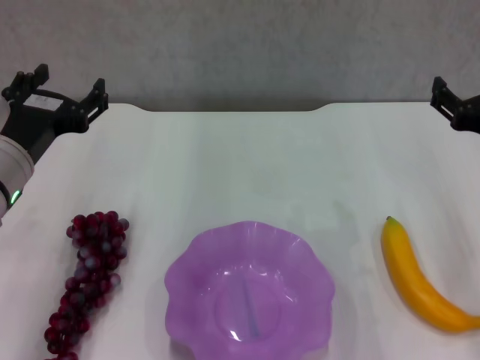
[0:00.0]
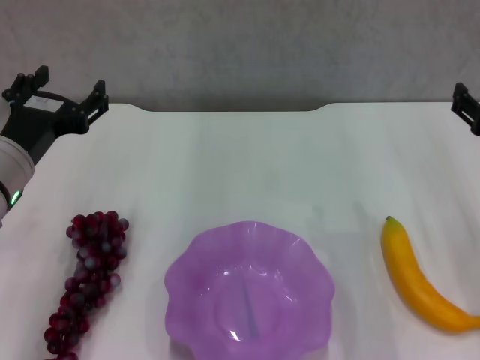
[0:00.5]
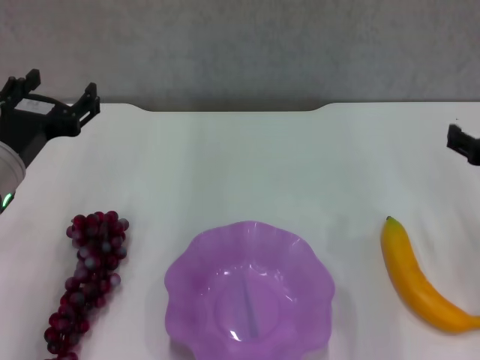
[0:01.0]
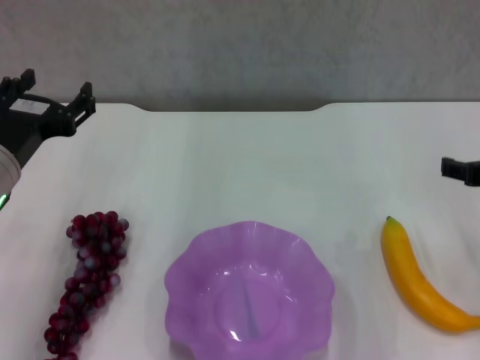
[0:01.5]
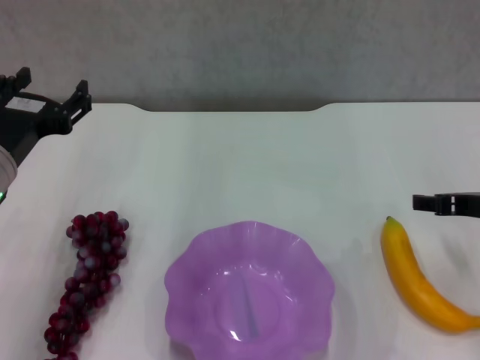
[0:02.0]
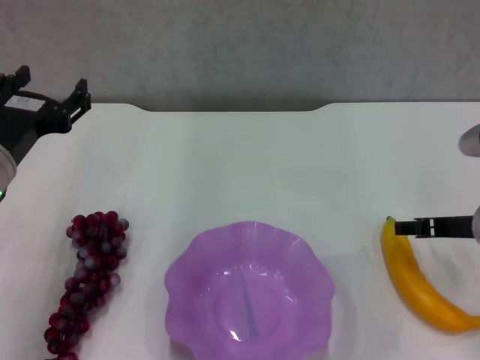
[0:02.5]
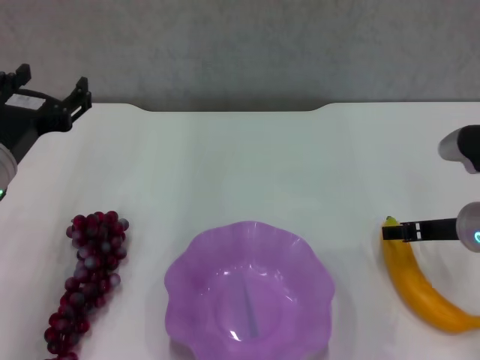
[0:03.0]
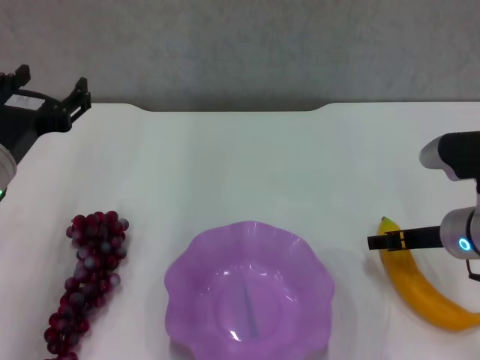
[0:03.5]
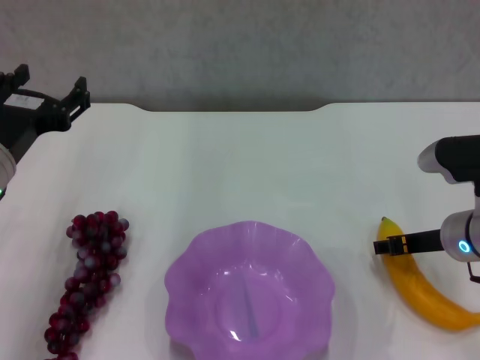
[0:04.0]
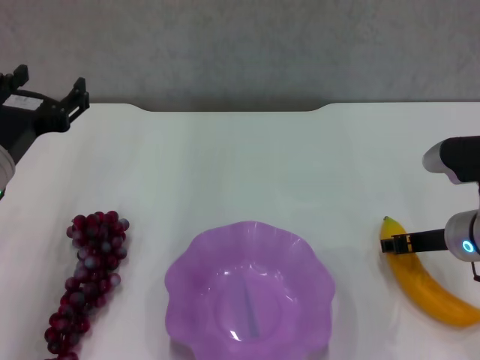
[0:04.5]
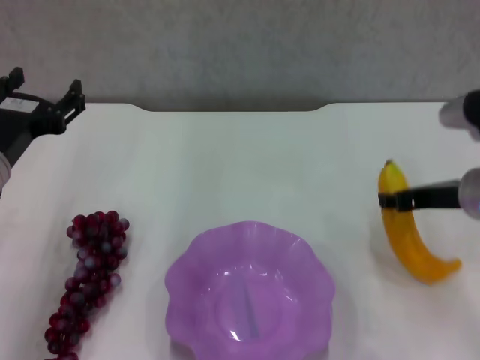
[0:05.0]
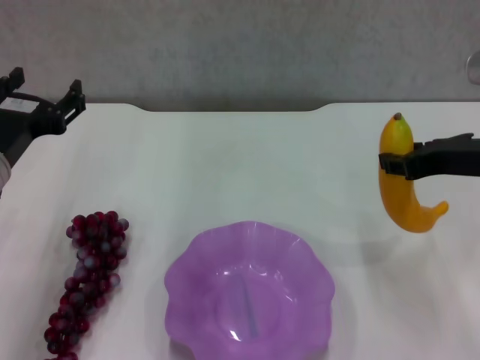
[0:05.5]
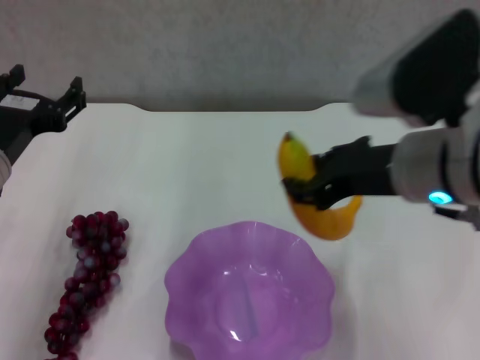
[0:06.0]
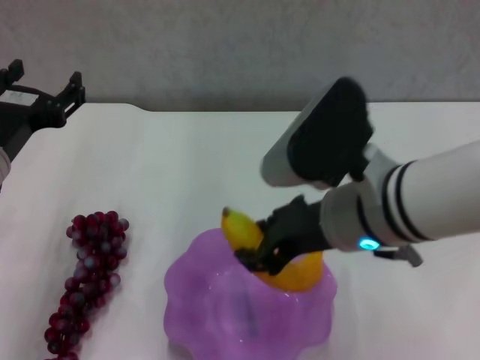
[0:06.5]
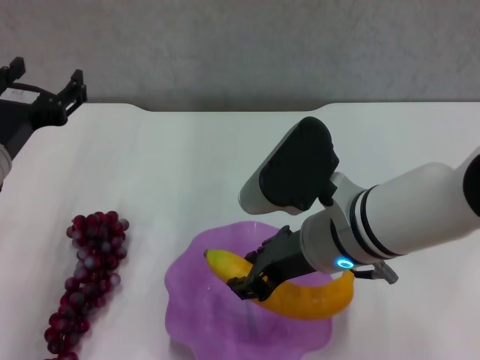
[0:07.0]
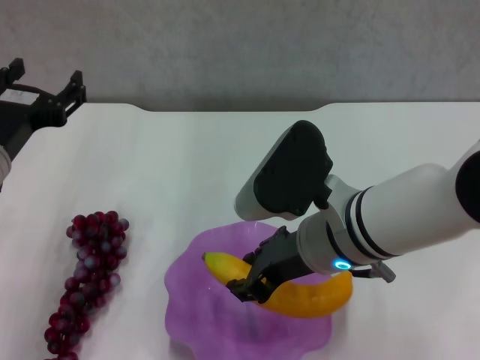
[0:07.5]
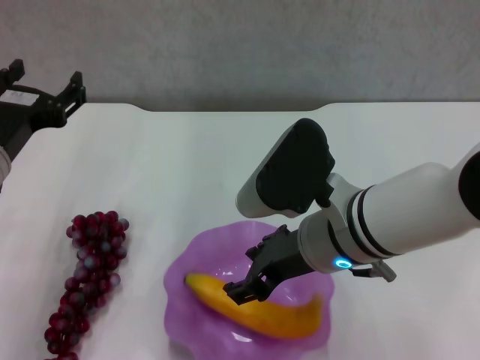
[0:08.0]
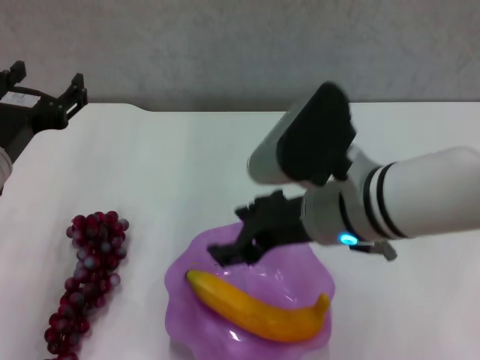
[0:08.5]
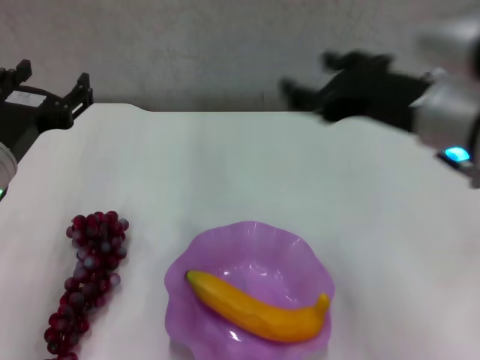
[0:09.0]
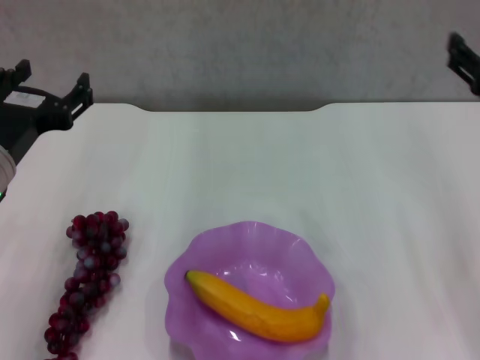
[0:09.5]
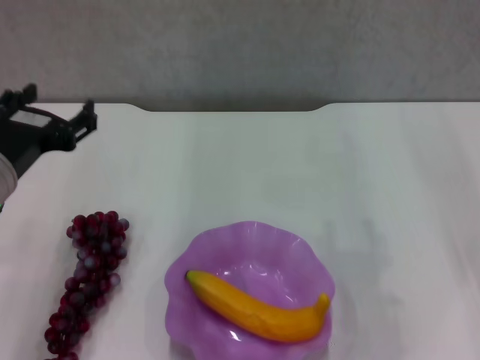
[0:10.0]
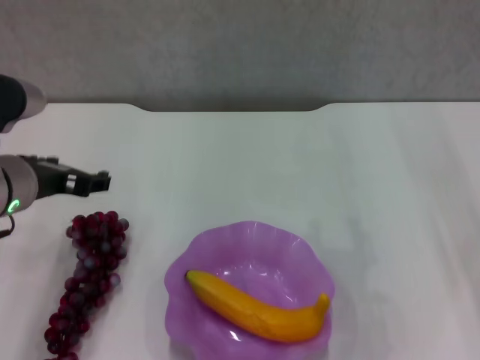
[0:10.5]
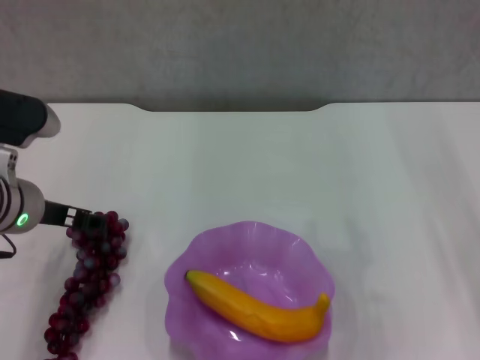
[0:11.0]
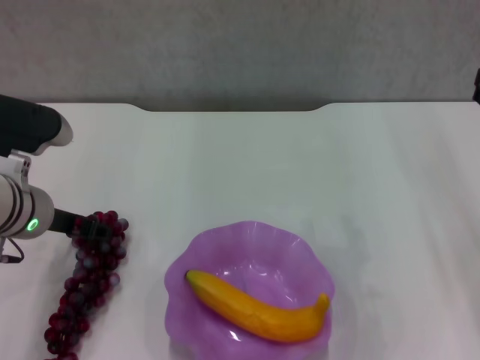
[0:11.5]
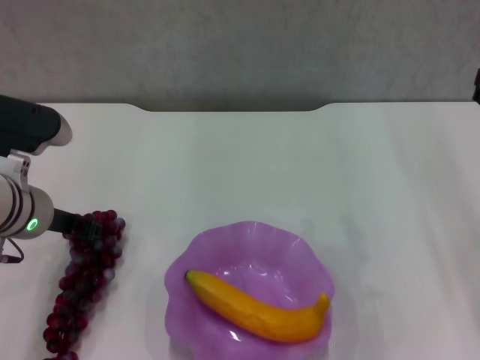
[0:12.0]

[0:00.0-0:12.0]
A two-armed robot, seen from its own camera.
Step, 0:00.0 to 0:04.0: Grasp the banana with right gripper.
Step, 0:05.0 to 0:08.0: Place the banana in the purple plate with right gripper.
0:02.0 to 0:04.0: The right gripper travels downward by some 5 cm.
0:04.0 to 0:06.0: The right gripper shifts some 20 cm upward and to the left, and closes.
0:06.0 to 0:08.0: The right gripper goes some 10 cm downward and to the left.
0:08.0 to 0:10.0: The right gripper is displaced to the right by approximately 20 cm, and opens up.
0:10.0 to 0:12.0: The left gripper moves forward, roughly 5 cm, and closes its fingers.

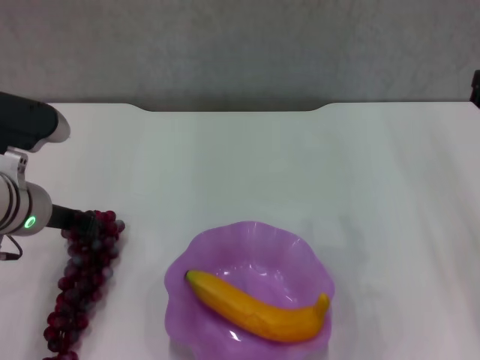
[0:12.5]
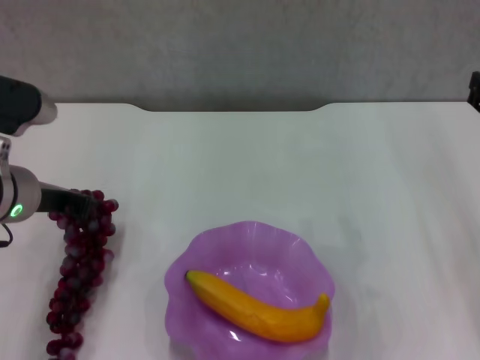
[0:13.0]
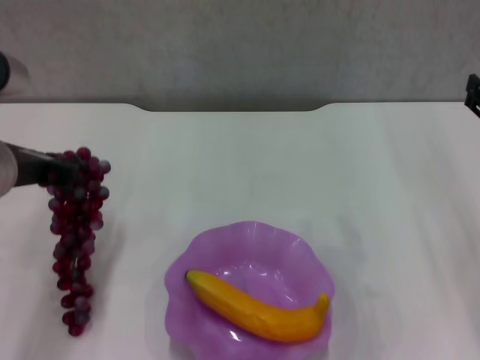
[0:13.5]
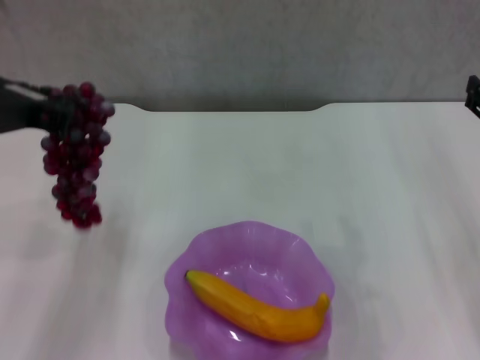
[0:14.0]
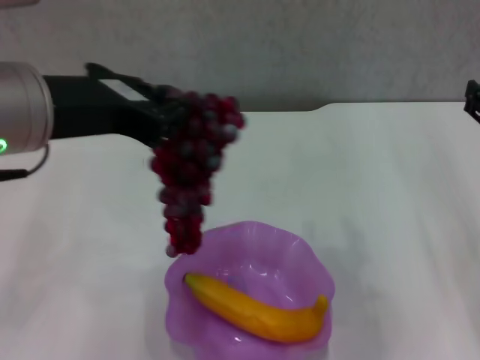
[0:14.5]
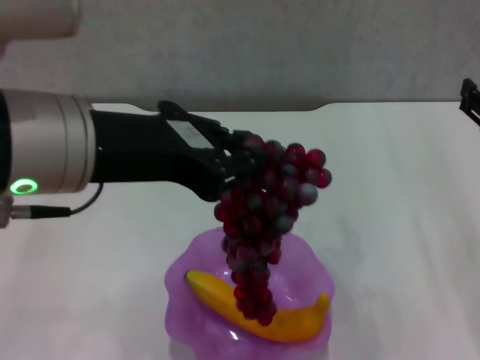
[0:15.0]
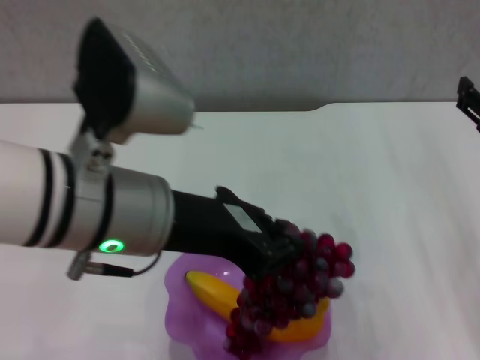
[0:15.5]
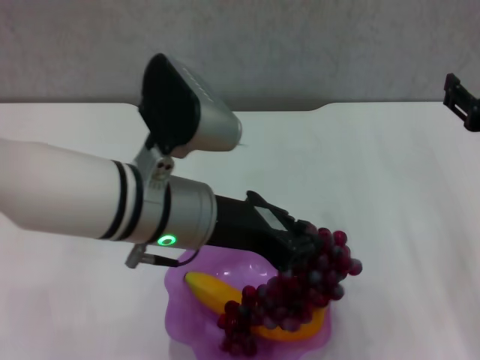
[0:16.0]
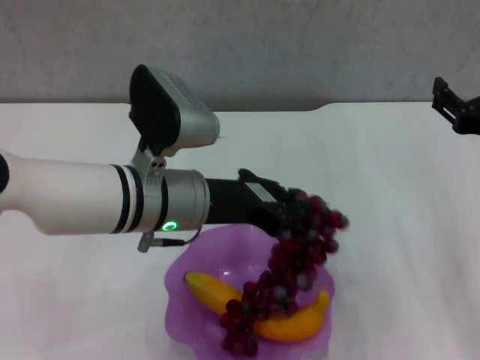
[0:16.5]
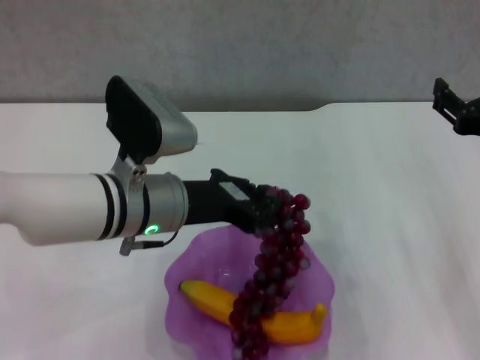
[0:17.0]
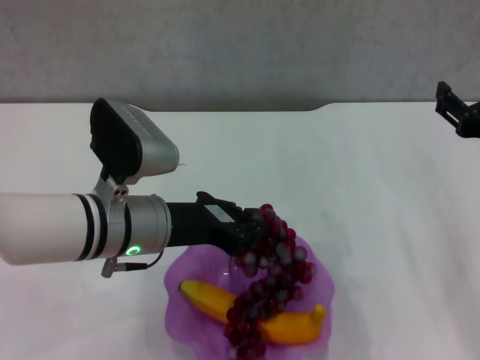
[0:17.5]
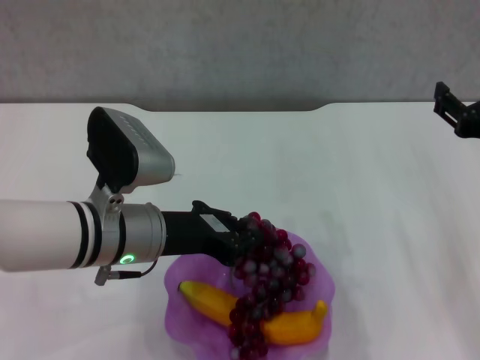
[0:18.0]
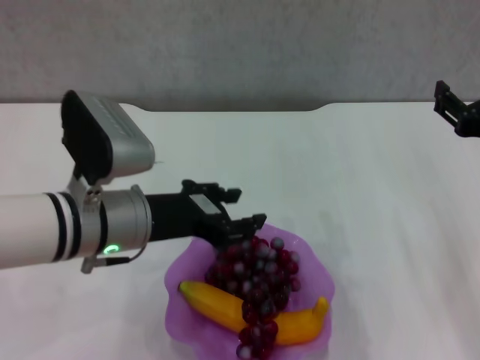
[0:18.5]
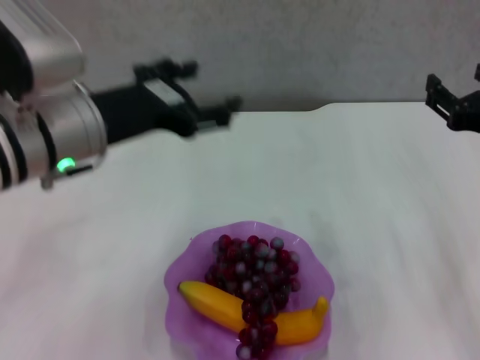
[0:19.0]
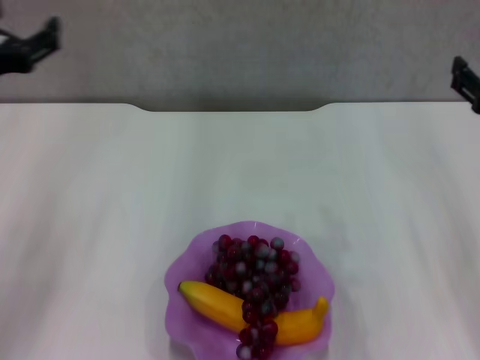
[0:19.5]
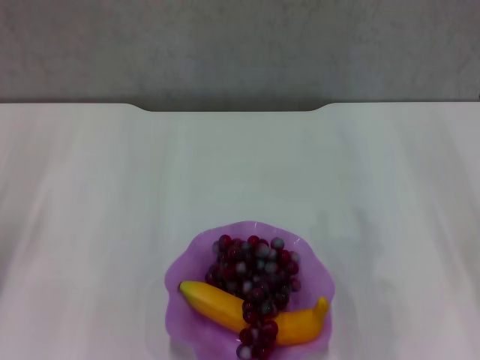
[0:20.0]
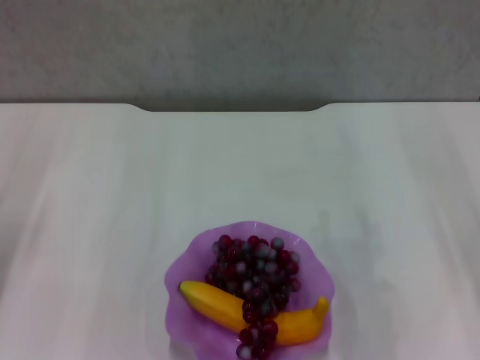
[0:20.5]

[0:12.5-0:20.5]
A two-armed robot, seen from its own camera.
Step, 0:13.0 to 0:18.5: Place the grape in the purple plate with left gripper.
0:12.5 to 0:14.5: The left gripper goes some 20 cm upward and backward.
0:14.5 to 0:16.5: The left gripper heads downward, to the right and forward, covering about 15 cm.
0:16.5 to 0:18.5: The left gripper ends up some 5 cm from where it was.
0:18.5 to 0:20.5: The left gripper is displaced to the left by approximately 20 cm, and opens.
